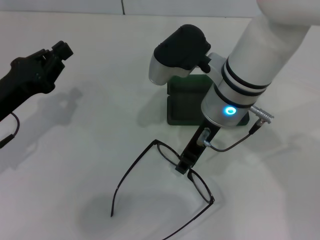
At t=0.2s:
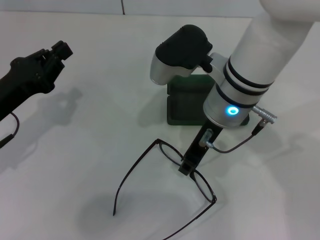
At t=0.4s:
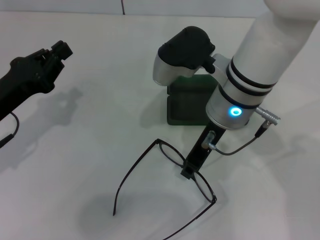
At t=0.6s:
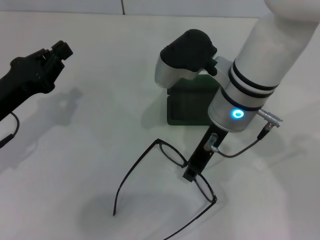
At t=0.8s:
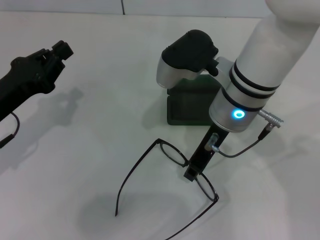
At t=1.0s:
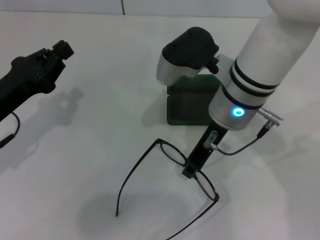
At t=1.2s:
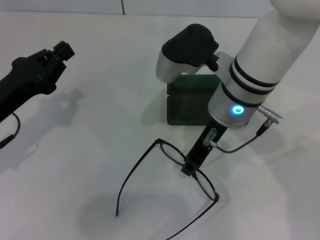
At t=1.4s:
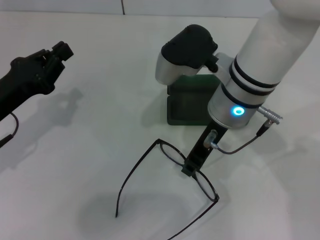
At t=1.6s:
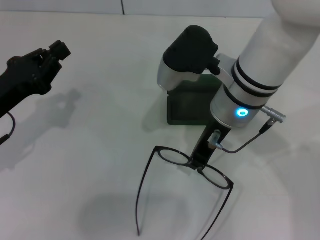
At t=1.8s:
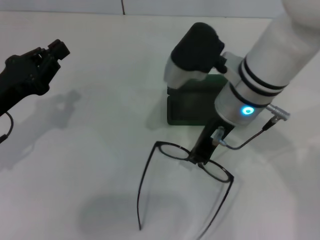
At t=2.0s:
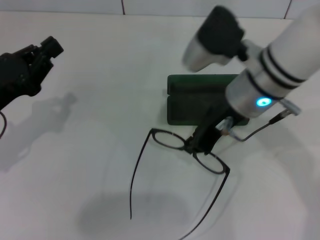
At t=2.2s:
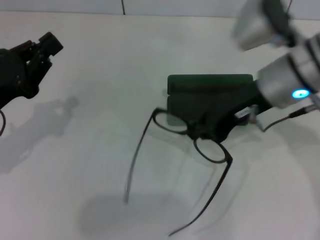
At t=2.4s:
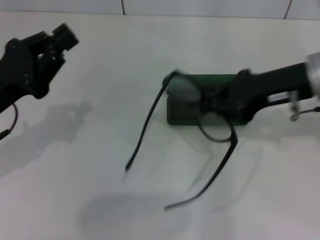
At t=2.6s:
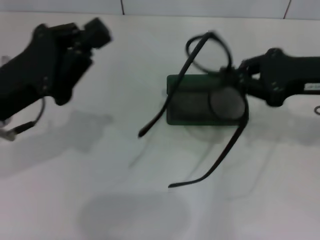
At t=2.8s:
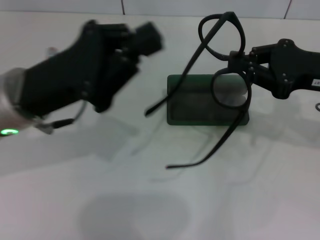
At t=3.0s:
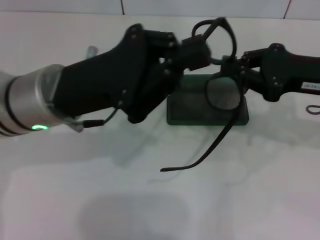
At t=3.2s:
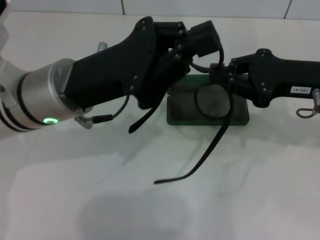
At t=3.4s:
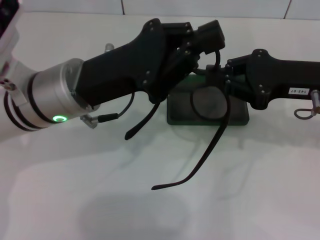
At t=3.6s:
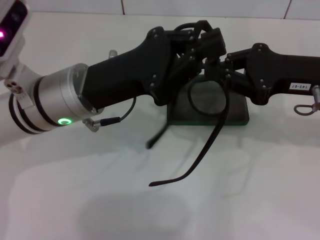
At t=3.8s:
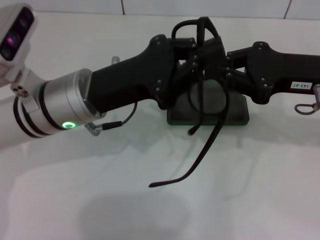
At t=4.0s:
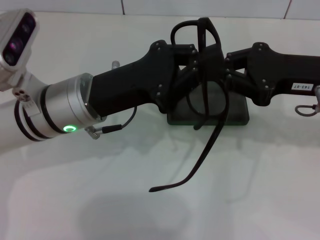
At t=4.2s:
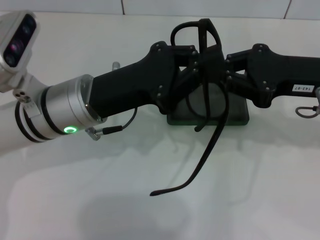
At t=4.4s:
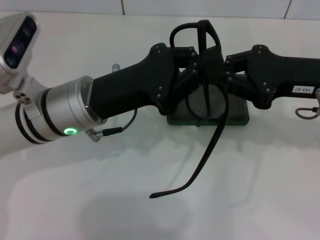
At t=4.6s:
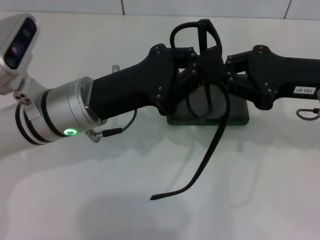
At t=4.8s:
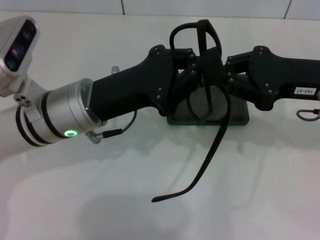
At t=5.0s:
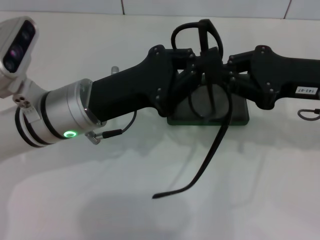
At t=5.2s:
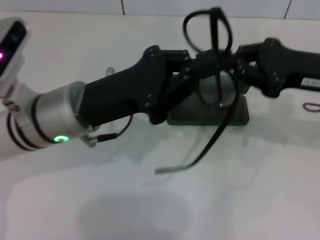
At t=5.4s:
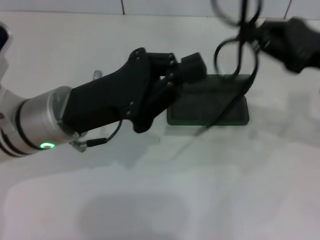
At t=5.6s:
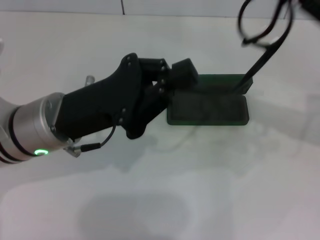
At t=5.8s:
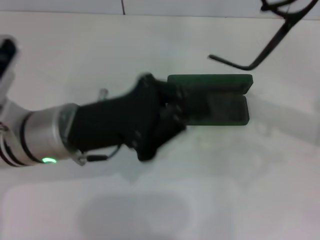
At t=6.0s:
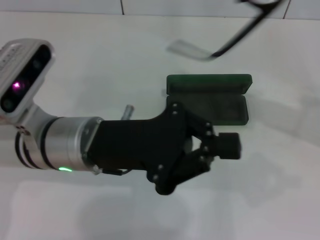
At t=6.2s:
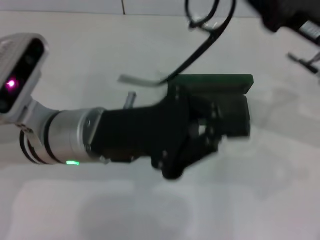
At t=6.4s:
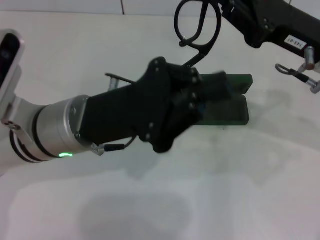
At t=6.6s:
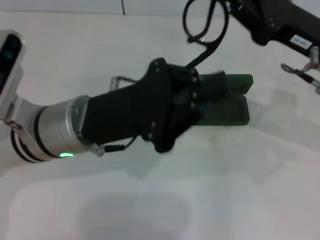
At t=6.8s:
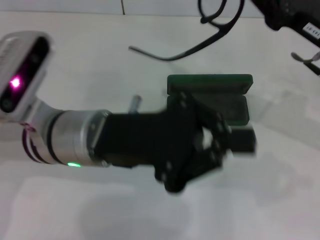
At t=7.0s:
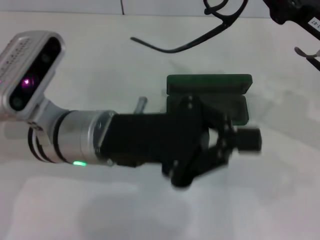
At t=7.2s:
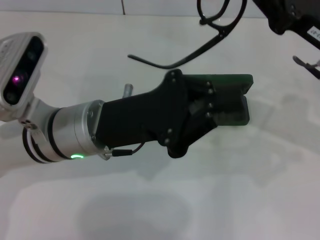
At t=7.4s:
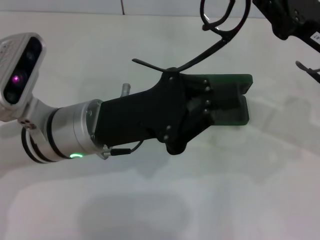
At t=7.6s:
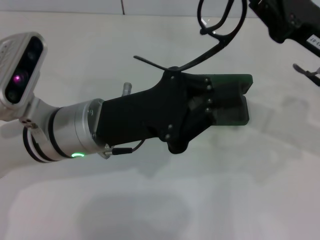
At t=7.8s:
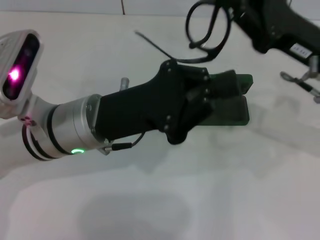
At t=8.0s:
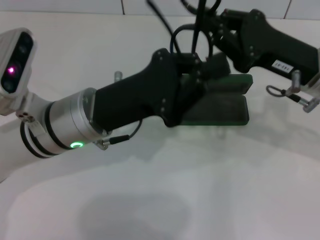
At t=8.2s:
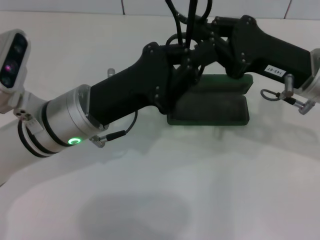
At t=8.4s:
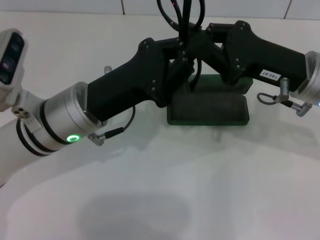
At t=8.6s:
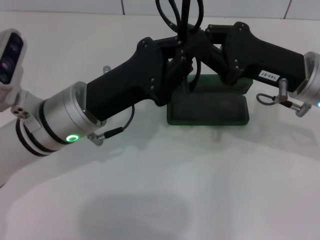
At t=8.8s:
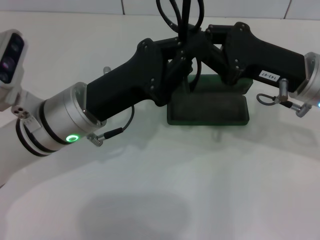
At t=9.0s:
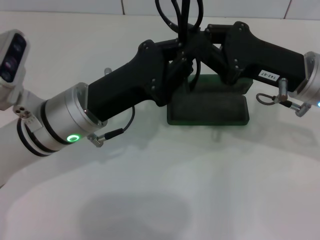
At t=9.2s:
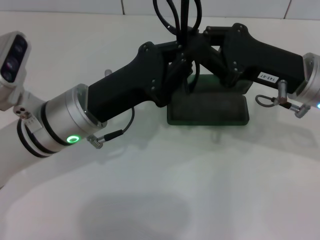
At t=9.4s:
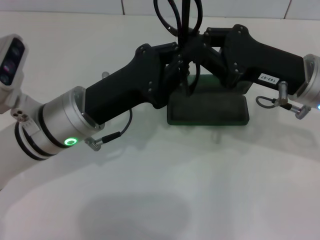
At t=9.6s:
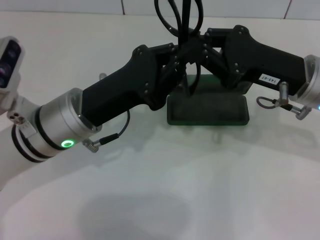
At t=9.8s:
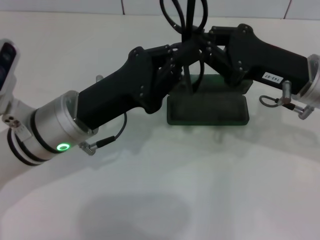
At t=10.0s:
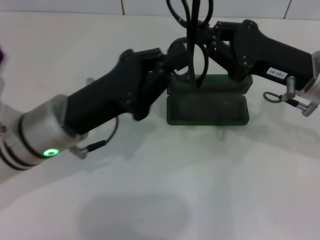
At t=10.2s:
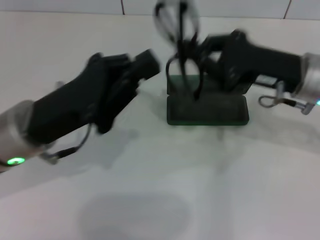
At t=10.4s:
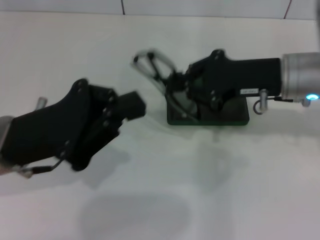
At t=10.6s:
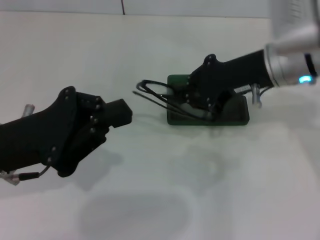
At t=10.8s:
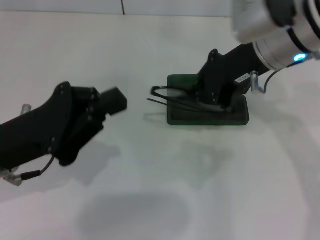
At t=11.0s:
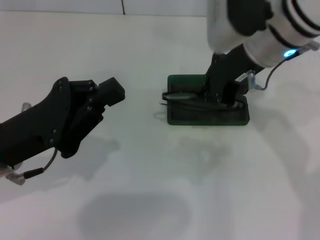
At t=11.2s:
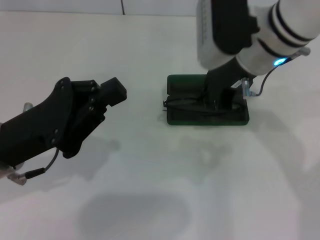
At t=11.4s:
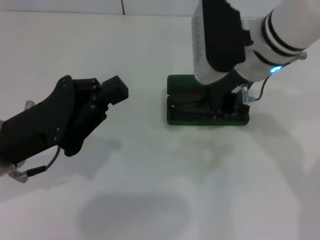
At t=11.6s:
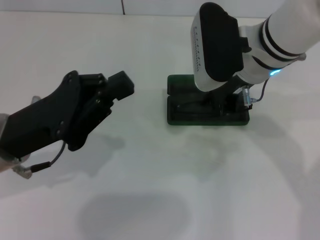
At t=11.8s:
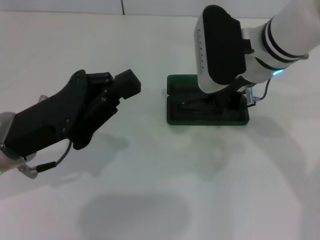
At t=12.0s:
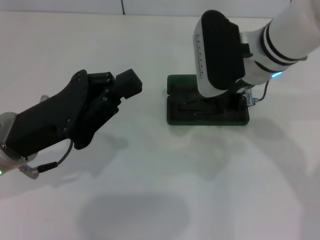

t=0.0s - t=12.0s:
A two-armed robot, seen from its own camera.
Step, t=0.0s - t=9.6s: Fold the frame with your left hand.
t=0.0s - t=1.6s: The right gripper closes up.
t=1.6s - t=3.0s: The right gripper heads to the right, covering about 20 cm, while the left gripper moves to the right and upward, about 15 cm.
t=9.0s - t=10.4s: The left gripper heads to the left, covering about 5 cm.
t=10.4s - t=12.0s: The right gripper goes approximately 10 cm to the left.

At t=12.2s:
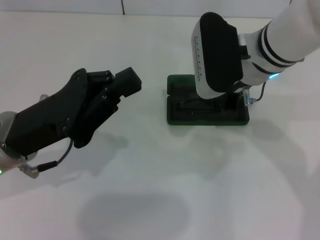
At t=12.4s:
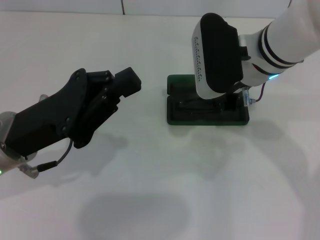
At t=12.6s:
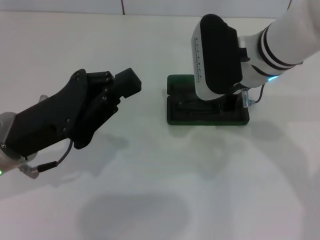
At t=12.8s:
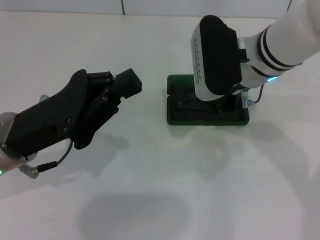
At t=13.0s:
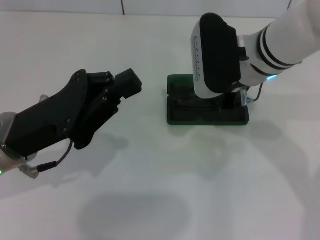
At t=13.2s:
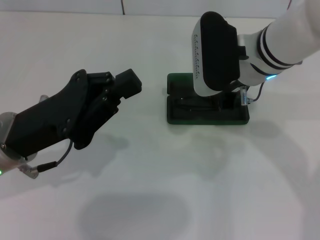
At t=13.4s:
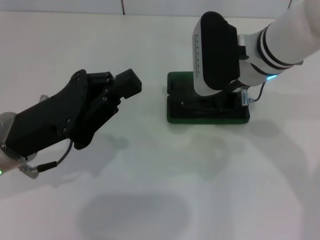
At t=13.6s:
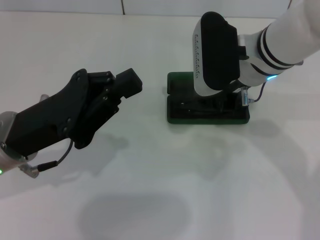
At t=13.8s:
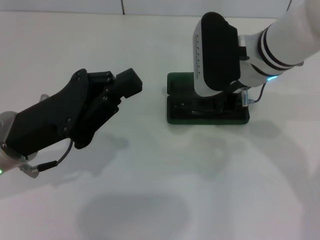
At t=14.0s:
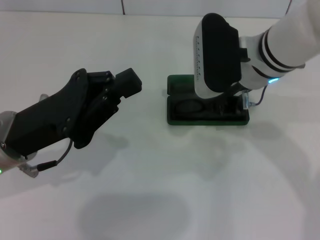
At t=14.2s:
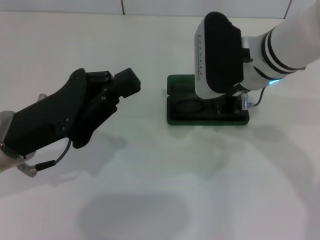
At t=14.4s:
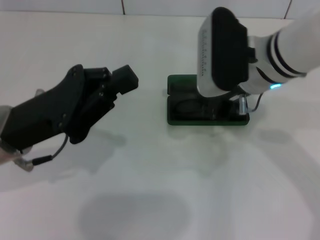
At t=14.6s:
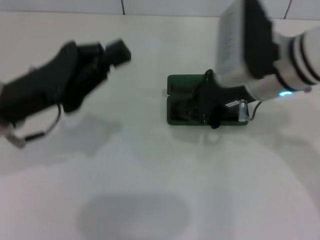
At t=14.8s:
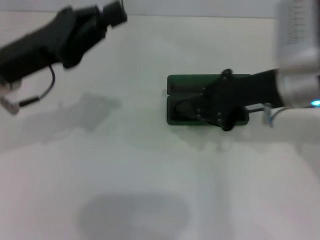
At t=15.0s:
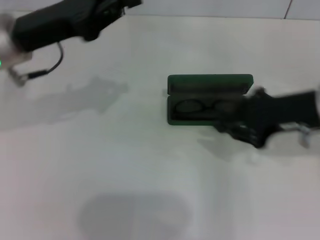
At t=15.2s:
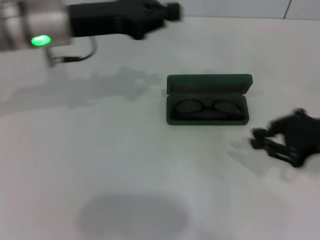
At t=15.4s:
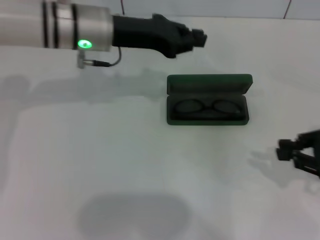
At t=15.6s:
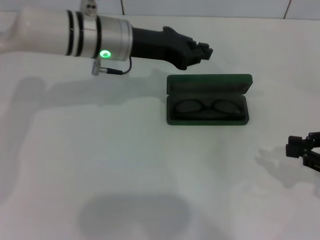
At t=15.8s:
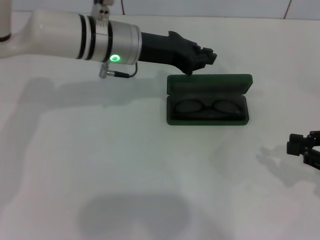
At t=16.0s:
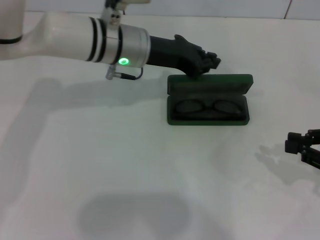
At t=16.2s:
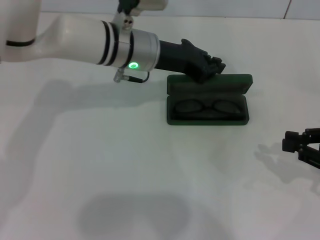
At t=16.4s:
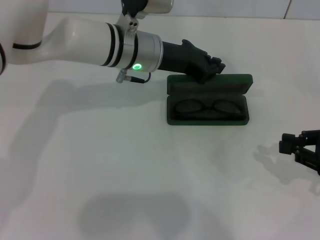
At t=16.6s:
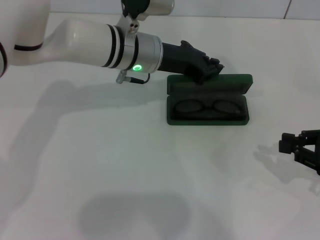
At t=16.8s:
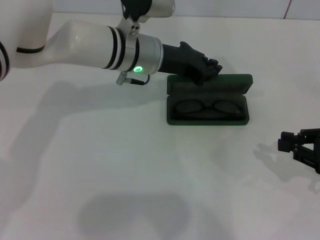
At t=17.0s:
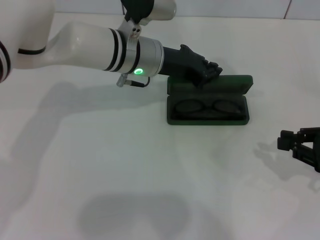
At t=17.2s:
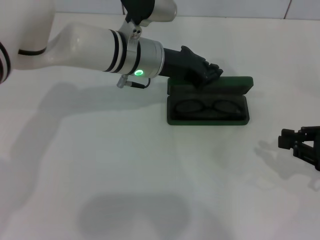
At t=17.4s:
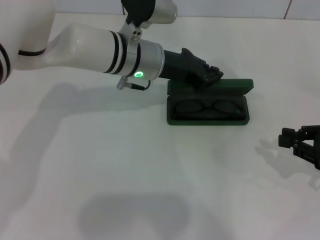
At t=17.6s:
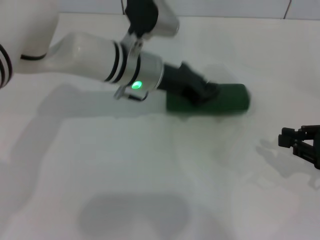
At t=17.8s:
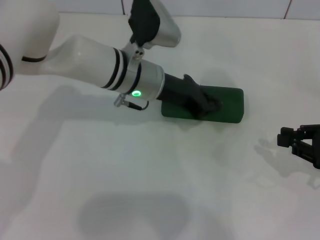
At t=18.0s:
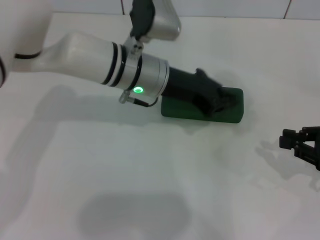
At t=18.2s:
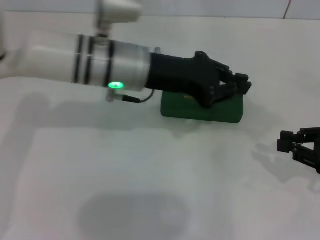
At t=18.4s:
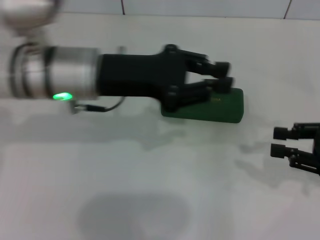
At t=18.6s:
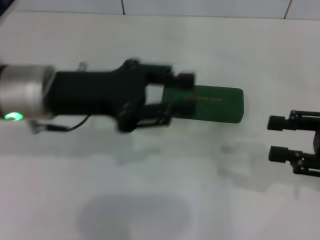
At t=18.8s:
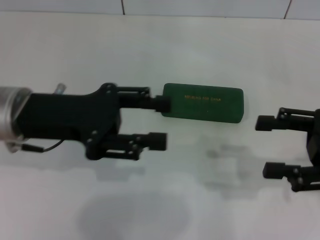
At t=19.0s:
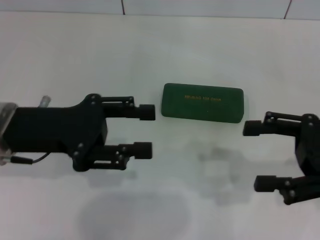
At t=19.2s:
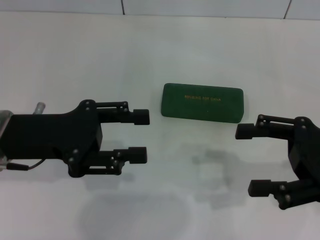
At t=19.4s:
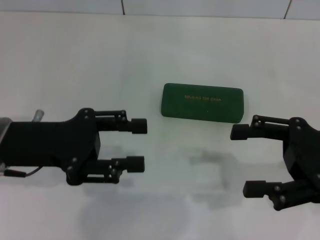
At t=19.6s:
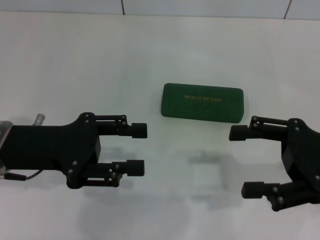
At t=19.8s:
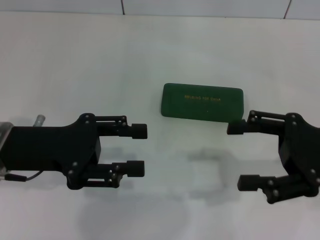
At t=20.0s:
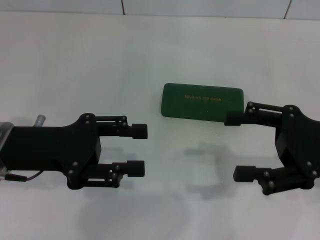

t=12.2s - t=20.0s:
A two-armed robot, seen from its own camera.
Step, t=14.4s - t=18.0s: Close the glasses case with your left hand.
t=12.2s - t=13.8s: Both grippers stay about where they are.
t=13.8s - t=15.4s: The left gripper moves forward and to the right, some 20 cm. Meanwhile the right gripper goes approximately 25 cm to the right and backward.
t=15.4s - t=16.8s: The left gripper moves to the right, some 5 cm.
t=16.8s - t=18.4s: The left gripper moves backward, to the left and upward, approximately 15 cm.
t=18.4s - t=20.0s: The right gripper heads to the left, covering roughly 5 cm, and opens up; the left gripper shifts approximately 10 cm to the left and backward, and opens its fingers.
